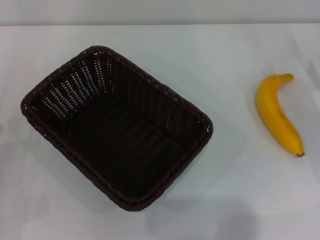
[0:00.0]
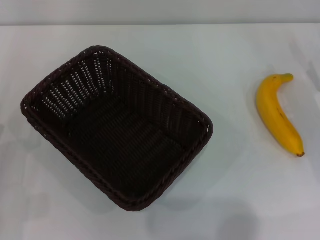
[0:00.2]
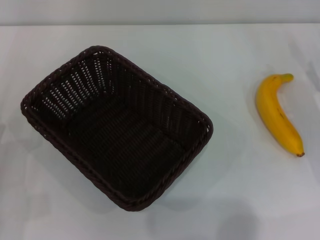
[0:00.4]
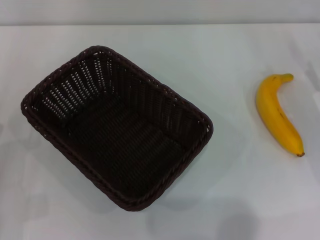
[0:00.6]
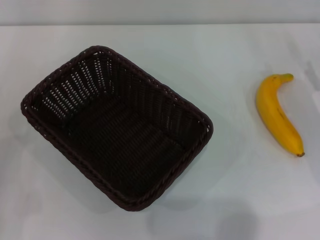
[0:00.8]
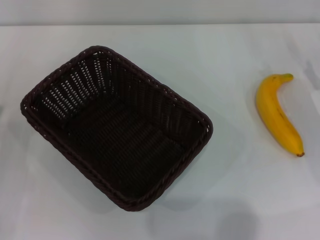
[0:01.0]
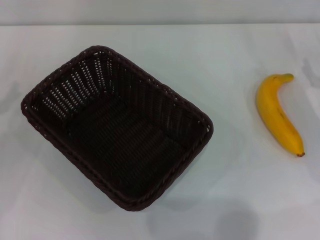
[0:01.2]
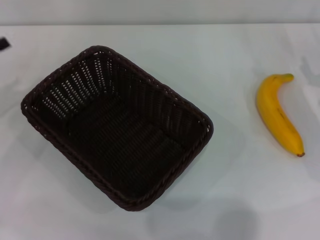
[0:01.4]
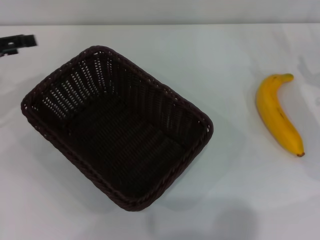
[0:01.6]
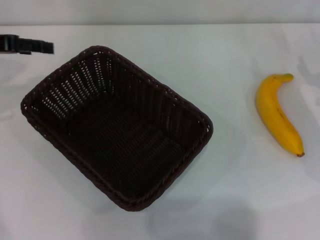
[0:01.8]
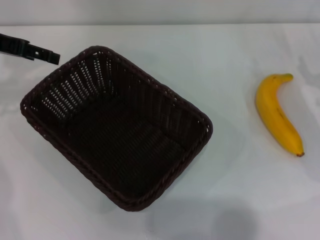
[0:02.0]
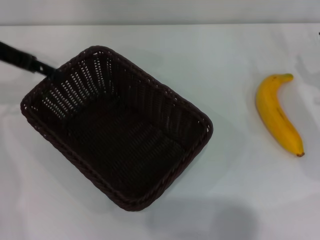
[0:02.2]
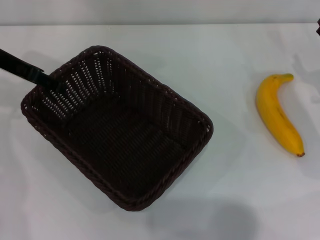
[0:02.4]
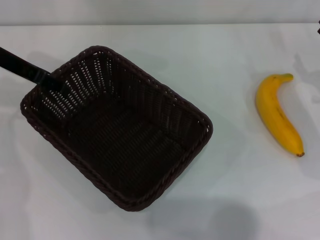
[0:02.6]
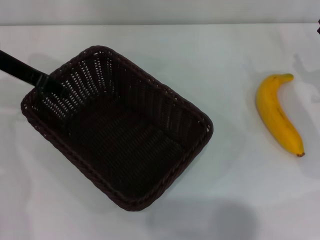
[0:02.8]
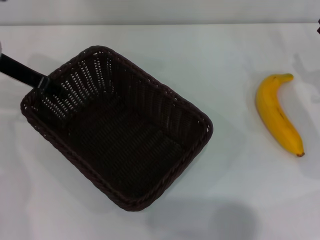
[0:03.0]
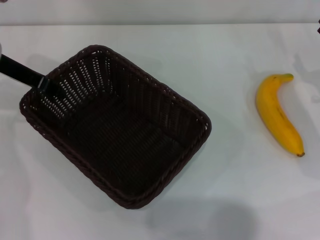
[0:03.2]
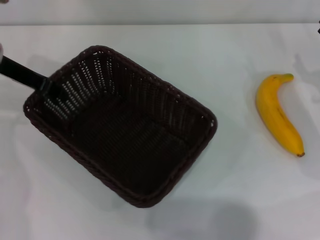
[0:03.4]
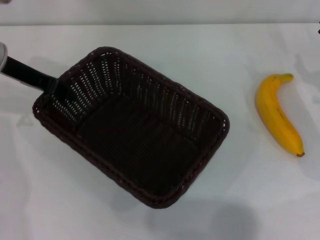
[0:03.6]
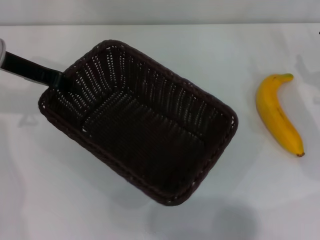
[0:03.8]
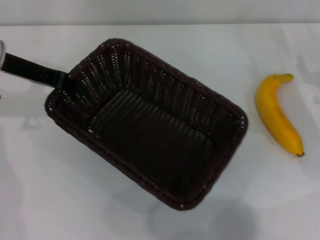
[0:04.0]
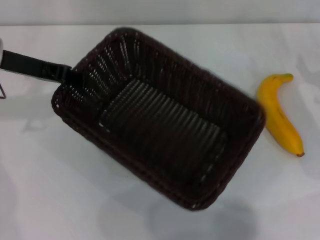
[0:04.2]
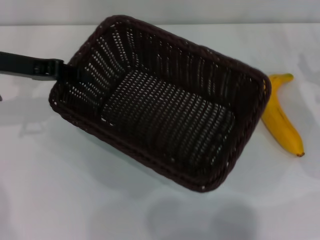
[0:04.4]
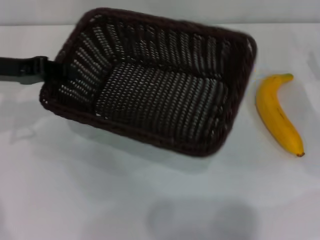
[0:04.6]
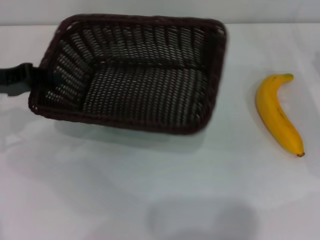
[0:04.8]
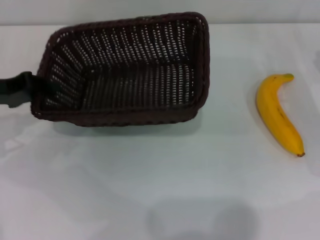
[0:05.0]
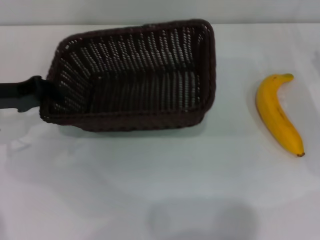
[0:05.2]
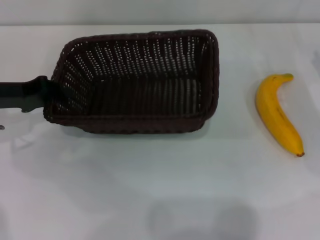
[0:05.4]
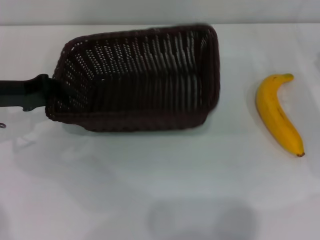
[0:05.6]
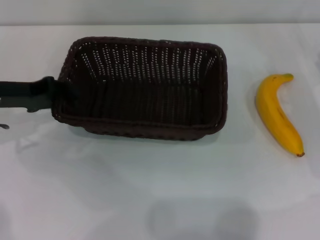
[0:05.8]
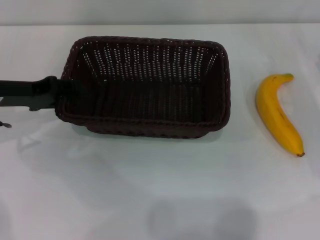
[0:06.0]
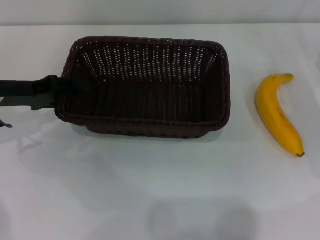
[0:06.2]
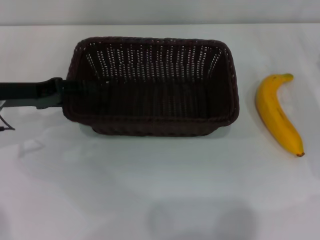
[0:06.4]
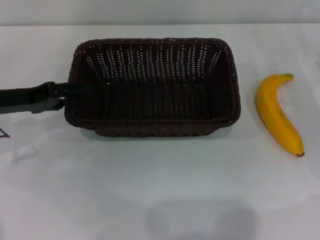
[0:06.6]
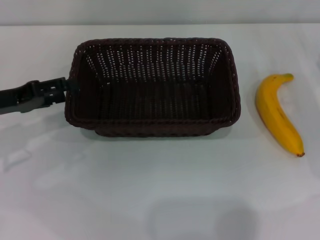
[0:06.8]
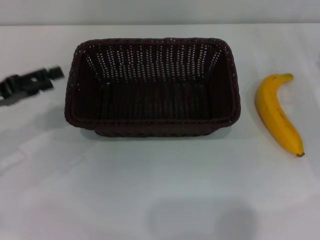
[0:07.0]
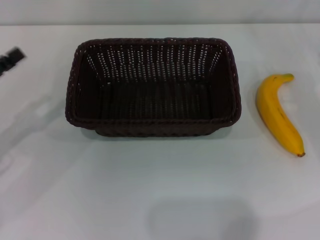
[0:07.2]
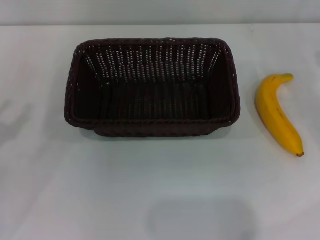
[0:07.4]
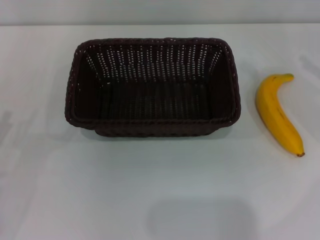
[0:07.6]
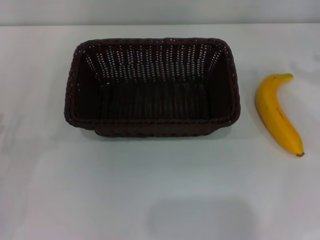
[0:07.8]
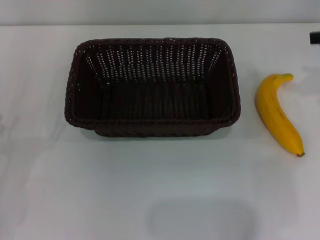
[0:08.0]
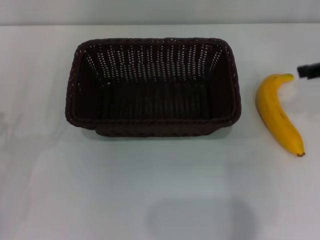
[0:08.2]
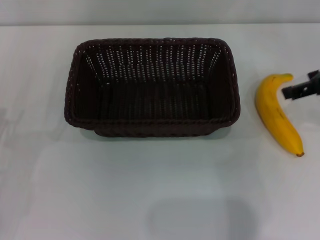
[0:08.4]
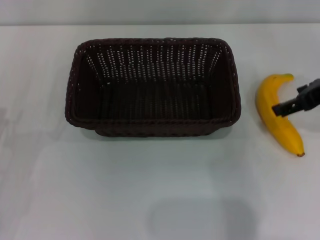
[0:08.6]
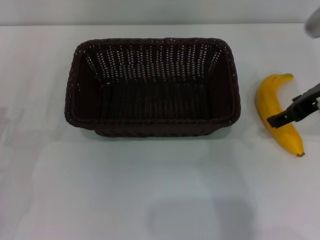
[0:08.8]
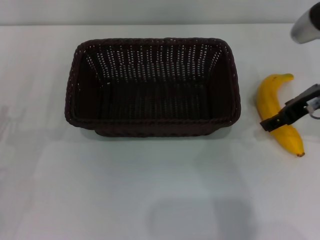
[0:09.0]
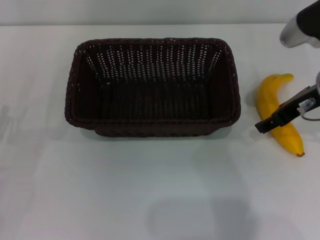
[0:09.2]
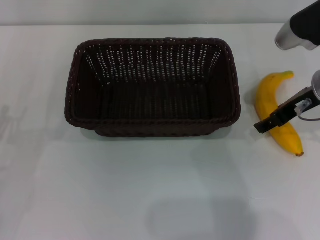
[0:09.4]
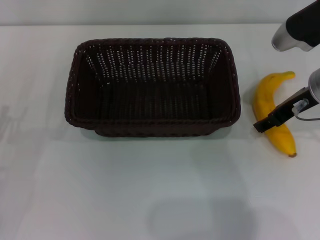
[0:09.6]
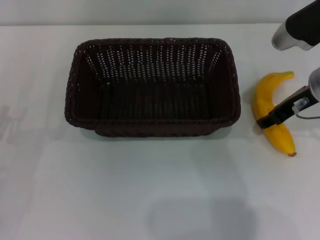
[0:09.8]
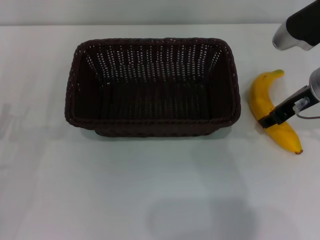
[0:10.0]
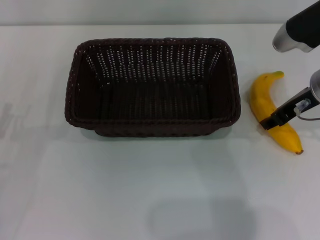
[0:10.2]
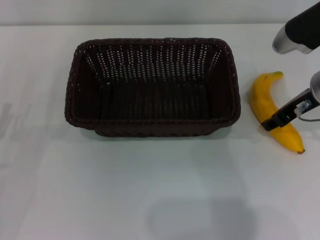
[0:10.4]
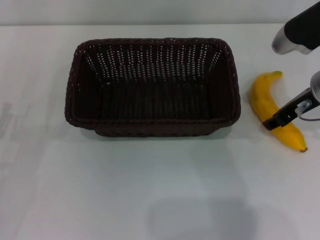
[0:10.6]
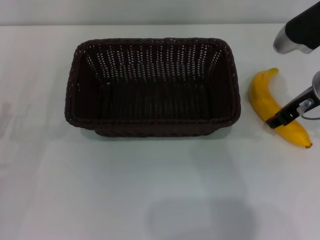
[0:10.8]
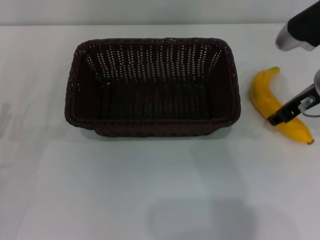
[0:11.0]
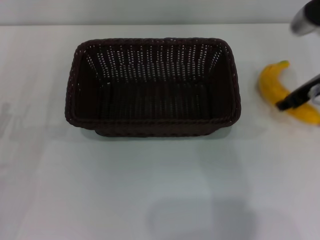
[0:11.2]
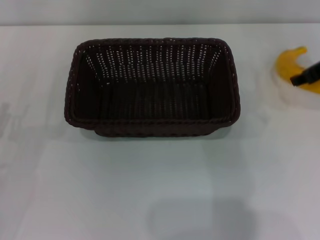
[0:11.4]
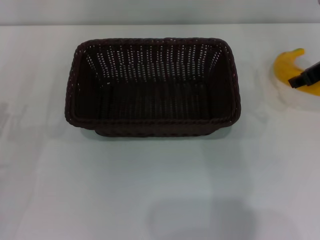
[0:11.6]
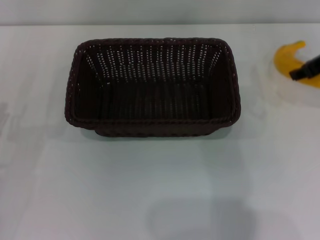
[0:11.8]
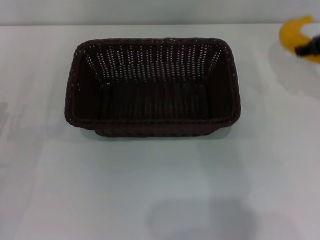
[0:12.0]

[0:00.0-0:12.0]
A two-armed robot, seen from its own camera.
Step, 0:00.0 to 0:04.0: Pick up the dark basket with the left gripper.
Step, 0:04.2 to 0:07.0: Place the dark basket in the center of view with the left gripper.
Step, 0:07.2 to 0:11.8: Pick up the banana with the right gripper.
0:00.0 to 0:01.6: The left gripper is displaced forward and upward by about 25 cm.
0:01.6 to 0:03.0: The left gripper shifts roughly 10 cm to the right, and closes its fingers.
0:03.0 to 0:04.4: The left gripper closes up.
0:04.4 to 0:06.0: The left gripper travels downward by roughly 5 cm.
0:06.0 to 0:07.6: The right gripper shifts approximately 10 cm upward and to the right. The left gripper heads backward, covering approximately 15 cm, and opens.
0:07.6 to 0:09.0: The right gripper shifts about 15 cm to the left.
0:09.0 to 0:10.4: The right gripper closes up.
0:10.4 to 0:12.0: The right gripper travels upward and to the right by some 10 cm.

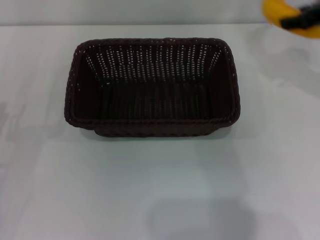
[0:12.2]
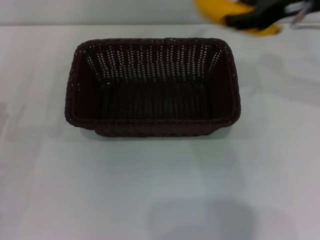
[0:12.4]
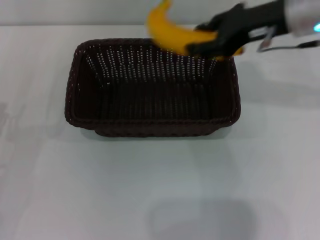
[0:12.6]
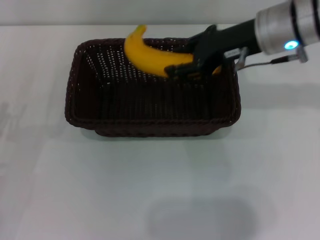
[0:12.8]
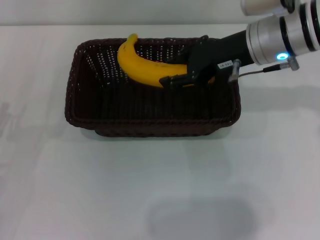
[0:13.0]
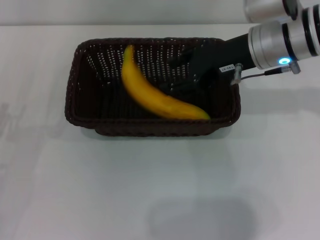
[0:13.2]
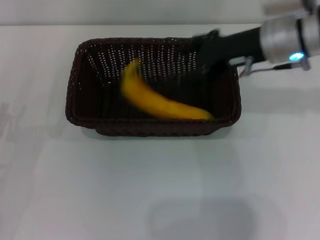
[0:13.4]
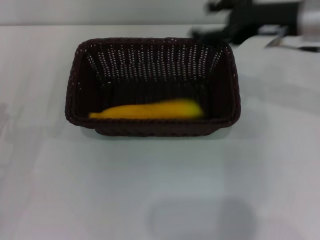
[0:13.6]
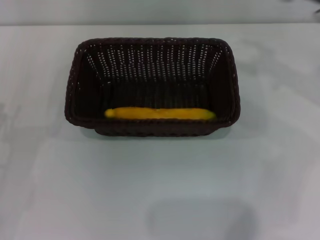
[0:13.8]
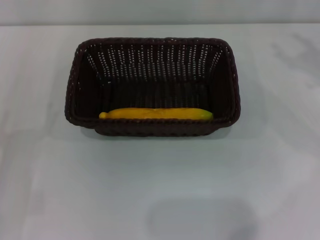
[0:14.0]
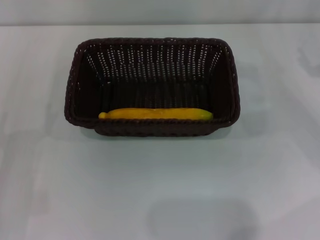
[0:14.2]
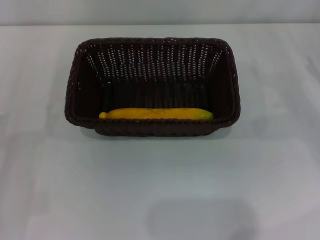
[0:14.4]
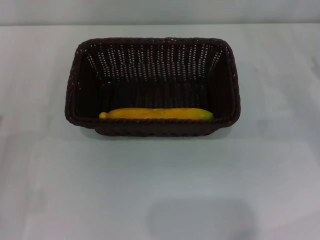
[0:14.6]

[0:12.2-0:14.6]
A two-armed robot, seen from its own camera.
Step, 0:12.2 to 0:13.4: Place the banana into the dark basket with the right gripper.
0:12.2 to 0:13.4: The right gripper heads to the left and downward, covering some 10 cm.
0:13.4 to 0:14.6: The right gripper goes roughly 25 cm to the right and downward, and opens.
